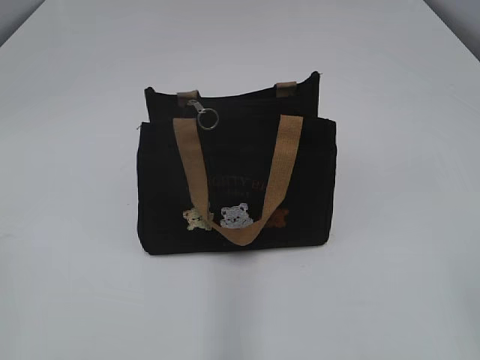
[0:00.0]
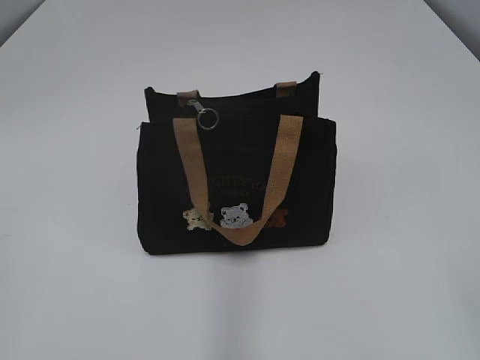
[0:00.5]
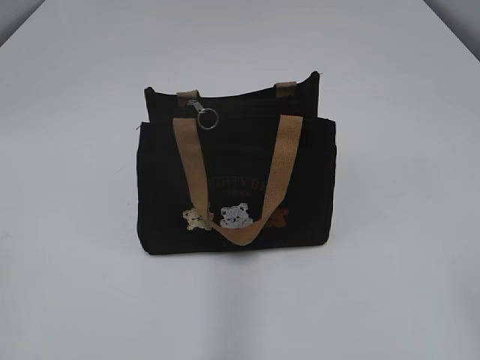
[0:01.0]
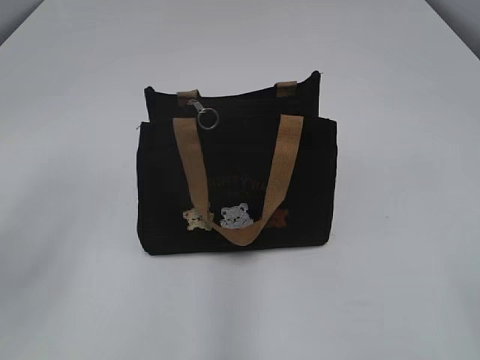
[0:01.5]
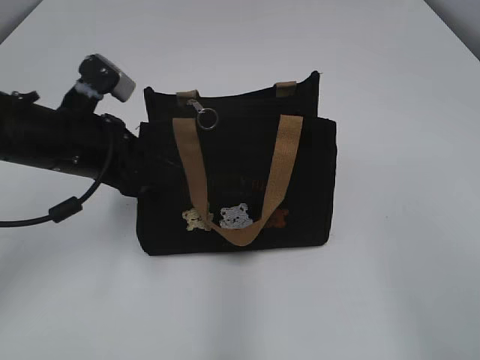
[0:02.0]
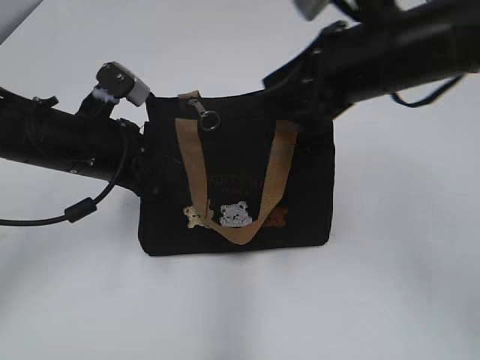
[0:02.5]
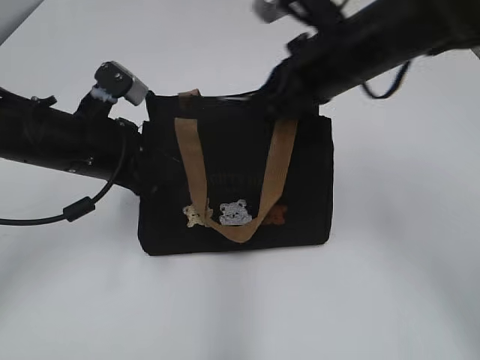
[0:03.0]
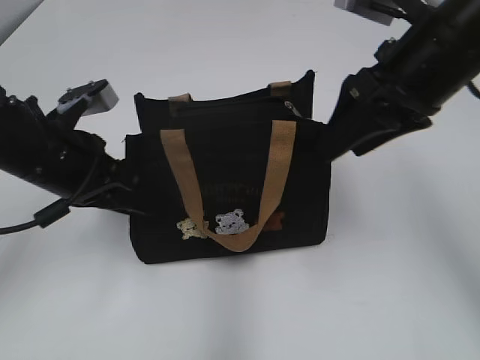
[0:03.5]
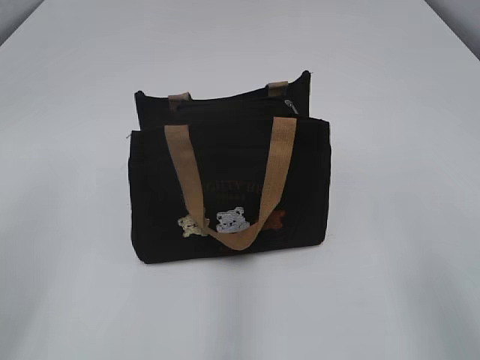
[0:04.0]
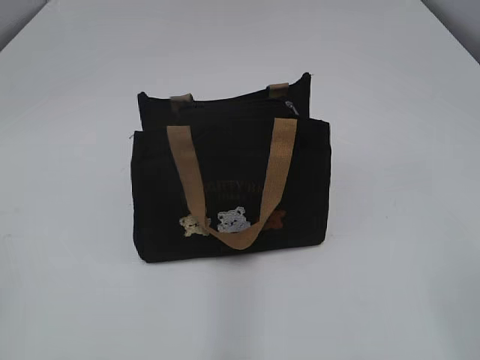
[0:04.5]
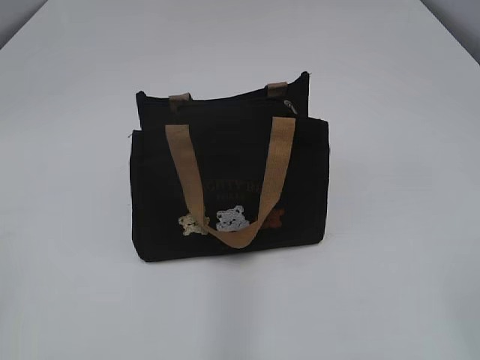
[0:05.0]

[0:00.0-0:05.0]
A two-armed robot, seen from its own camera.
Step, 0:00.0 to 0:03.0: Pull open the zipper with your right hand.
0:02.5 to 0:05.0: The left gripper heads backward and to the left, covering about 35 cm, and opens its fingers. The right gripper travels backward by roughly 25 cm, and closes and opens again.

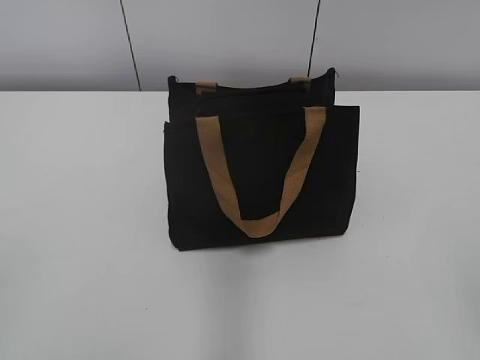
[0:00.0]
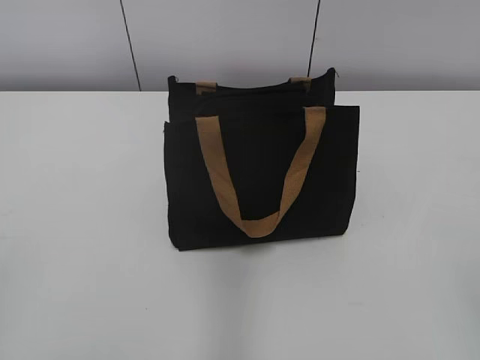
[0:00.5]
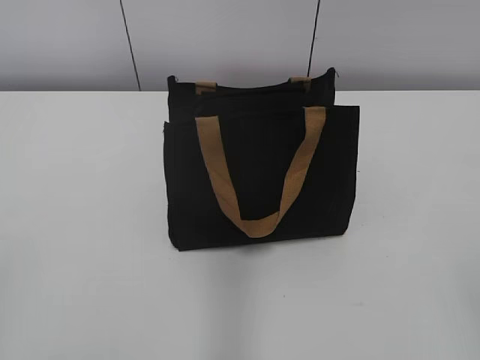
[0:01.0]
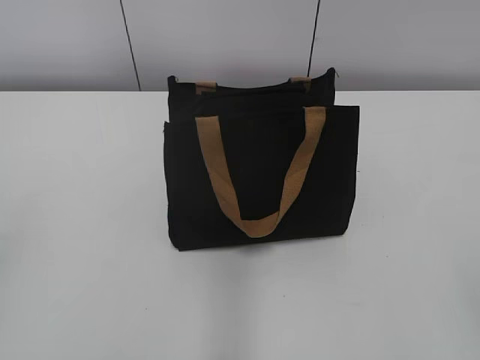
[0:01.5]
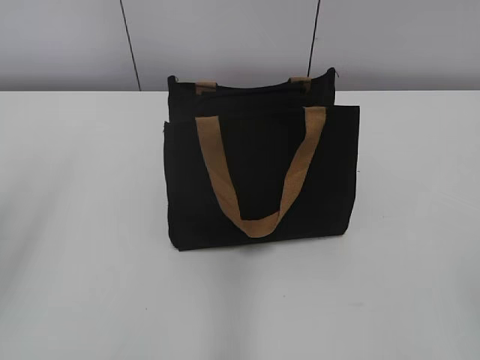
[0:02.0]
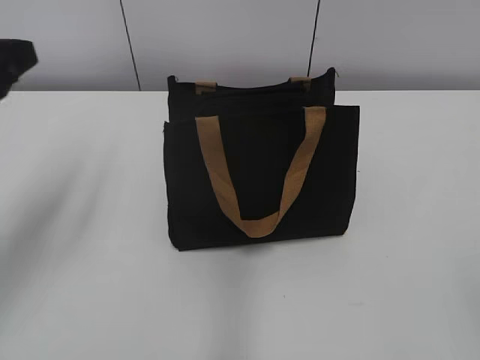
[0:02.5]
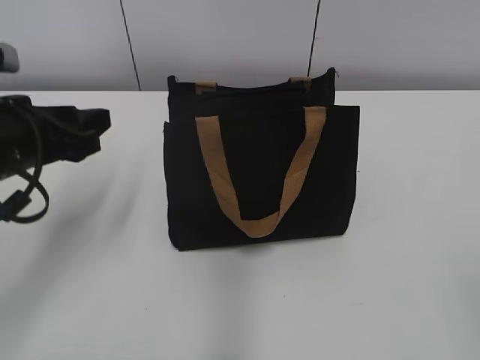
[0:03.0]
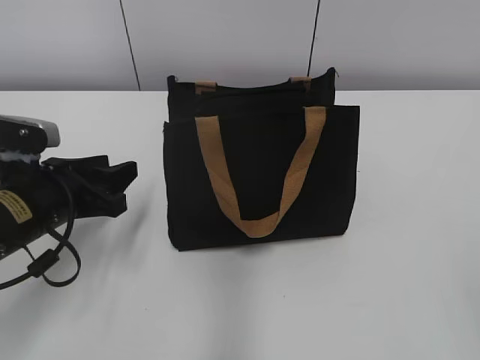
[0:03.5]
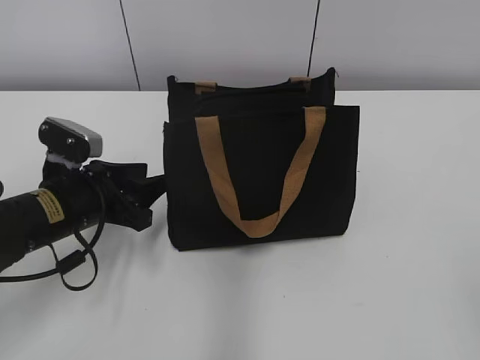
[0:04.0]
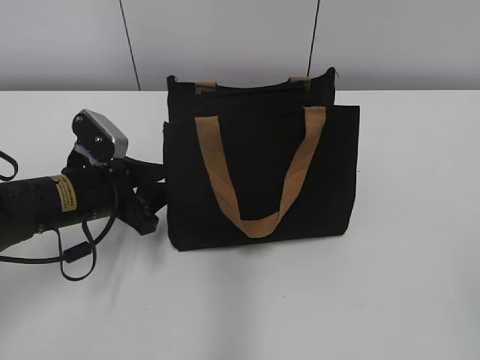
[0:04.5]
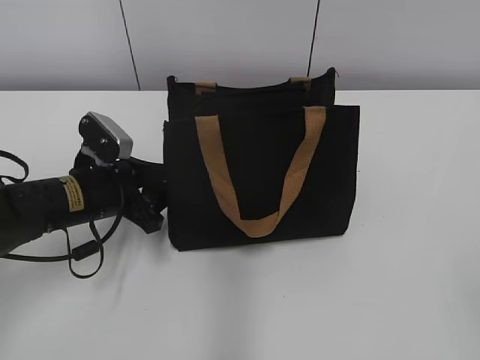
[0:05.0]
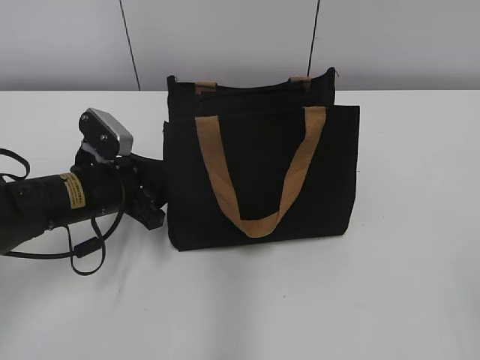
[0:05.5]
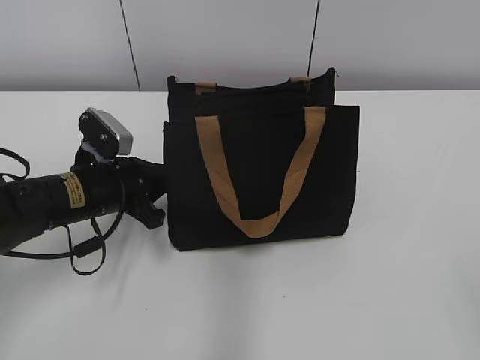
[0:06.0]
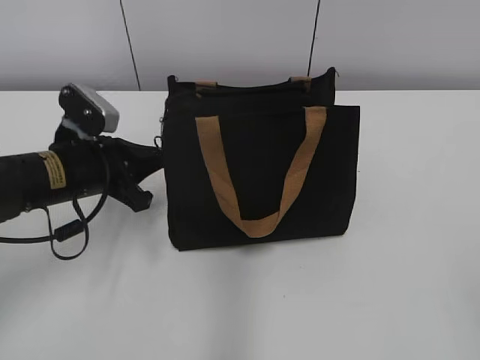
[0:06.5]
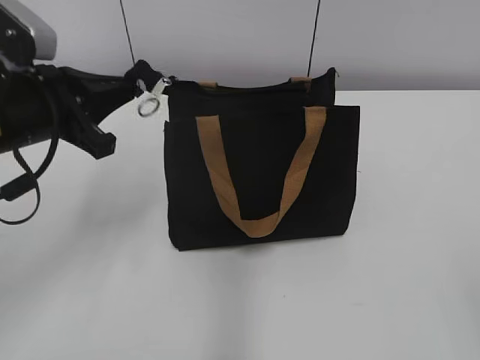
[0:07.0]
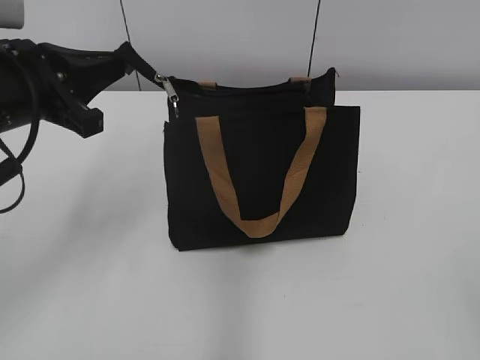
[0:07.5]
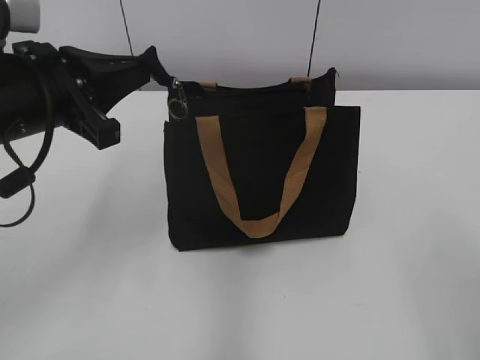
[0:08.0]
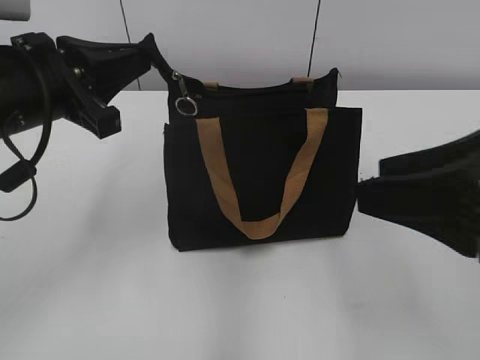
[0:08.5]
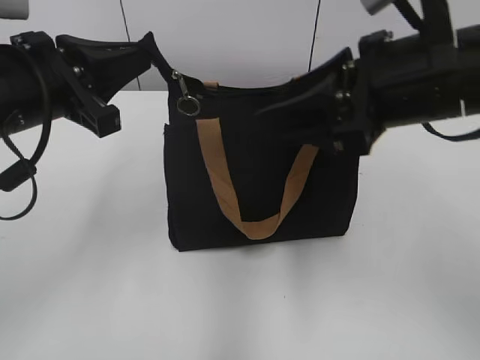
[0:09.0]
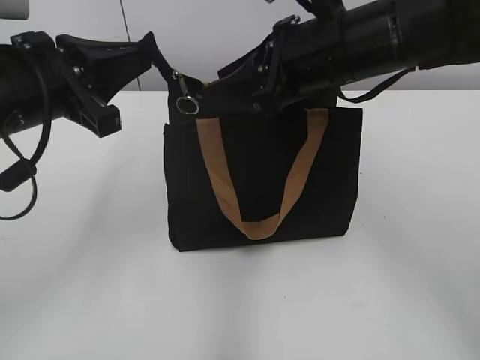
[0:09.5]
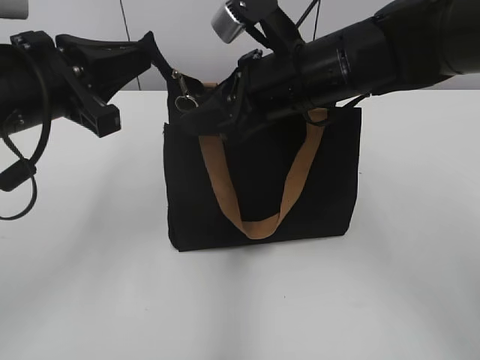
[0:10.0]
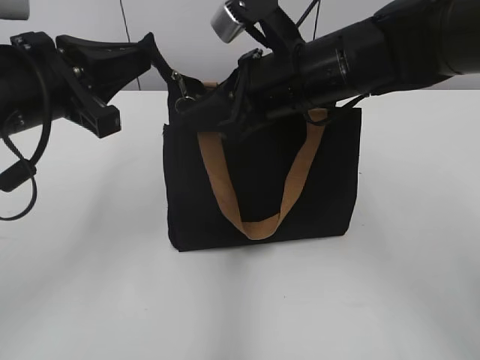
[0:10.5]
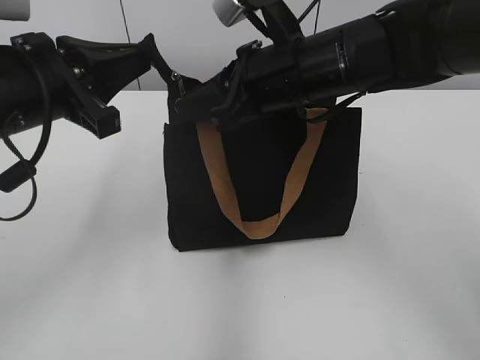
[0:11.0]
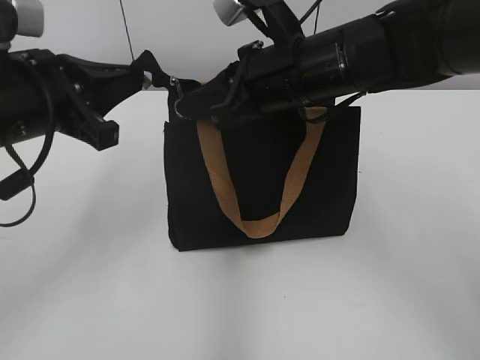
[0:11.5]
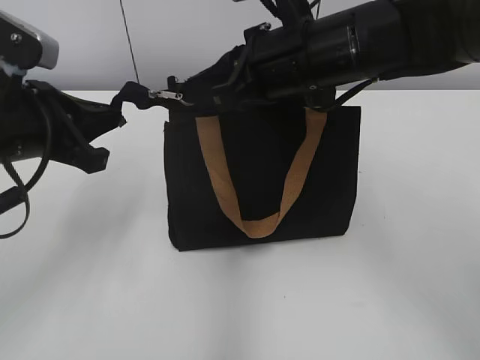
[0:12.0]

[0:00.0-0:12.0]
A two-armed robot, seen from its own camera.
0:02.0 to 0:04.0: The left gripper travels downward, forward and to the right by roughly 30 cm.
0:04.0 to 0:06.0: The left gripper closes up.
0:06.0 to 0:08.0: The right gripper changes place by approximately 5 cm; the left gripper heads upward, covering about 15 cm.
0:08.0 to 0:10.0: The right gripper travels forward and to the left by approximately 35 cm.
0:10.0 to 0:12.0: The right gripper closes up.

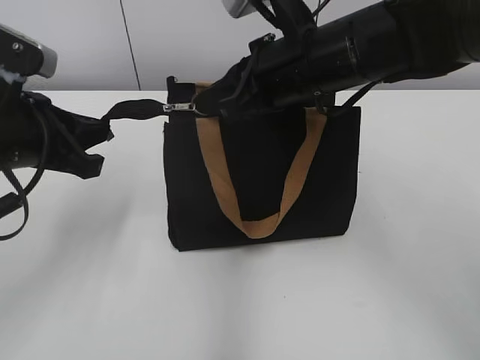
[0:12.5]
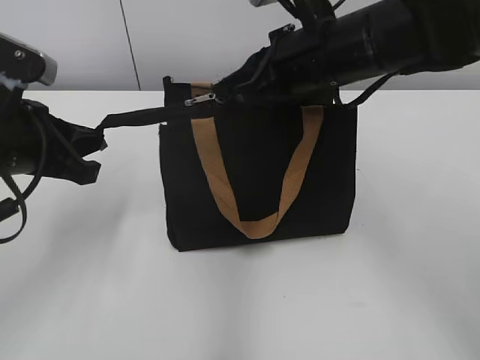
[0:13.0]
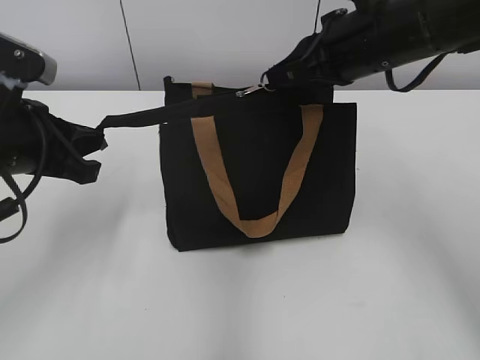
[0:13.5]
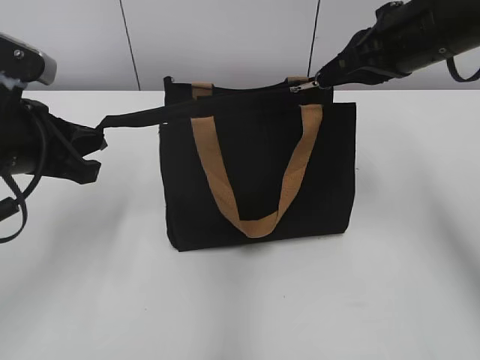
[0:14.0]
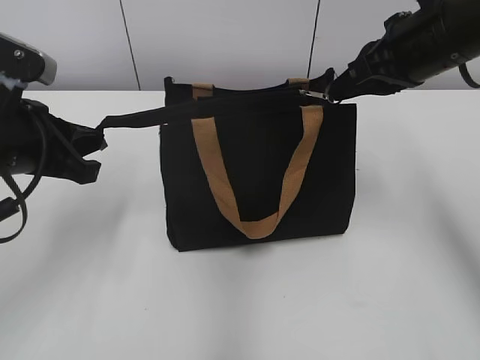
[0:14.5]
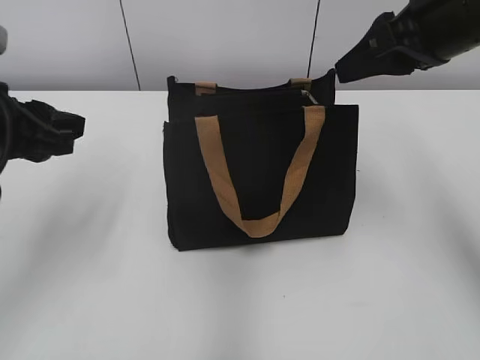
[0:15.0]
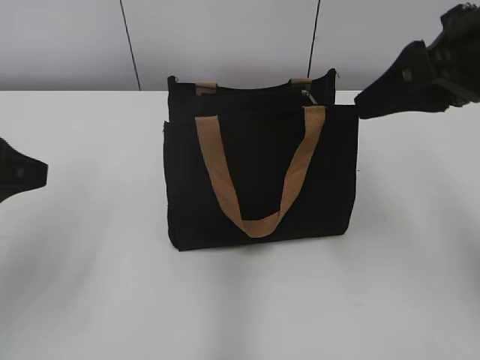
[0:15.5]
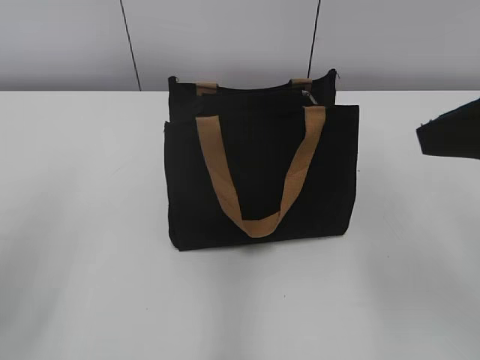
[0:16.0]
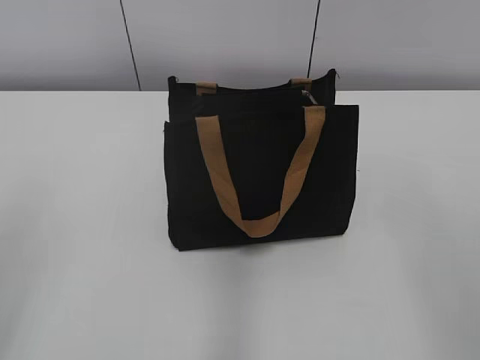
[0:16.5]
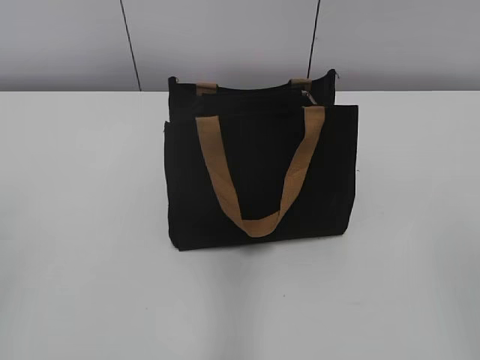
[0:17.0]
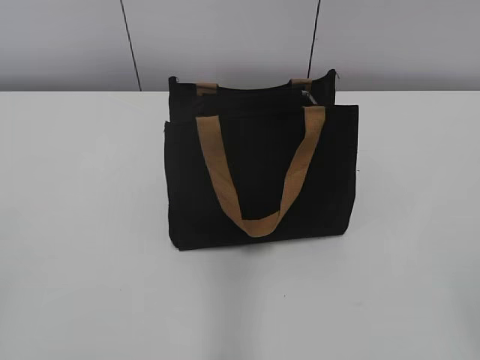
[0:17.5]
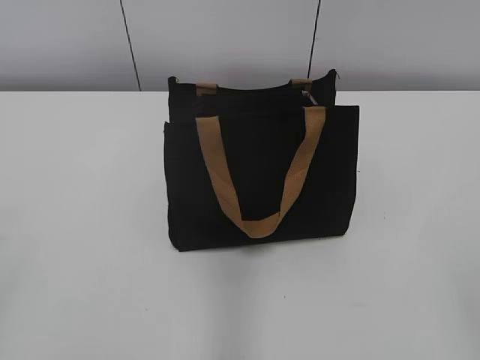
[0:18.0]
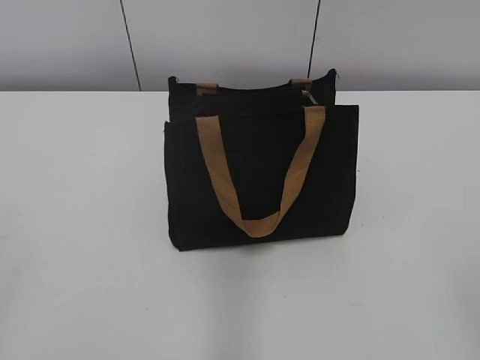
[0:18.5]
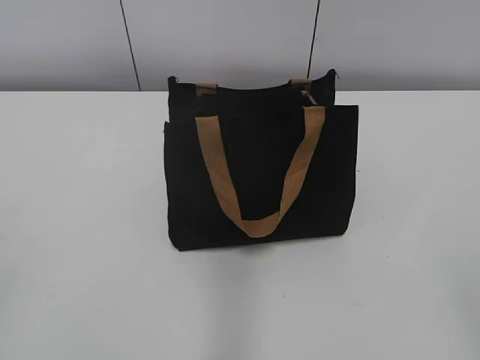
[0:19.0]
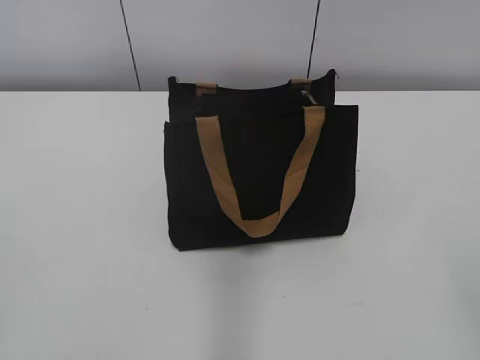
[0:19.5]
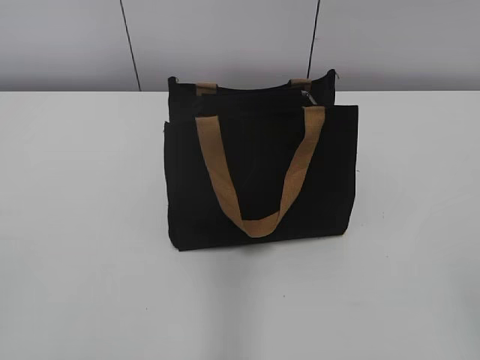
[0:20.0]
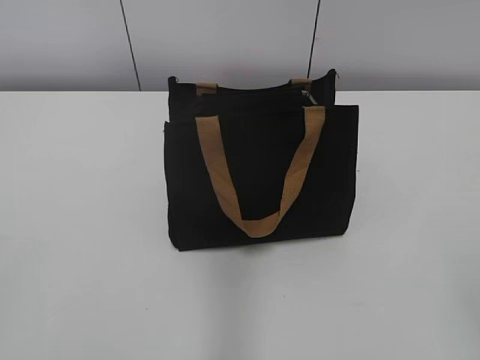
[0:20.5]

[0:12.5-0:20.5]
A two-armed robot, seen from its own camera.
Step, 0:12.5 to 0:14.5: Zip up the bag with your right hand.
0:12.5 to 0:14.5: The right gripper is displaced to the right by approximately 10 cm.
0:14.5 to 0:16.5: The right gripper heads backward, covering about 25 cm, and opens. The left gripper heads backward, upward and to the left, covering roughly 20 cm, and opens.
